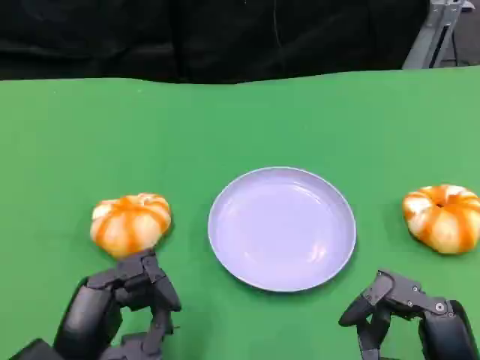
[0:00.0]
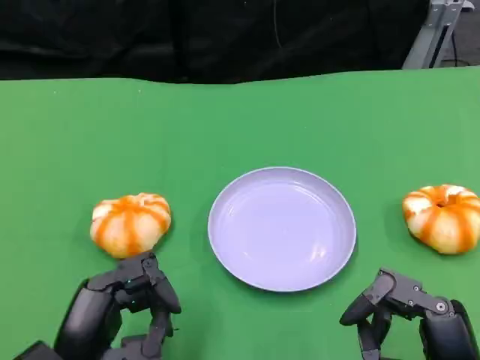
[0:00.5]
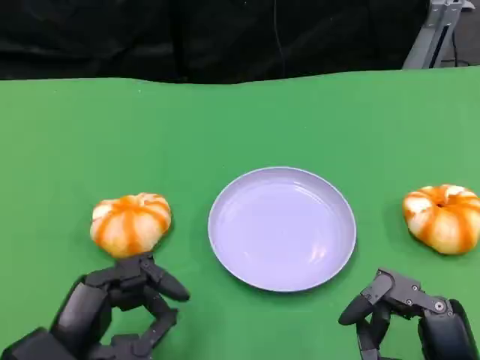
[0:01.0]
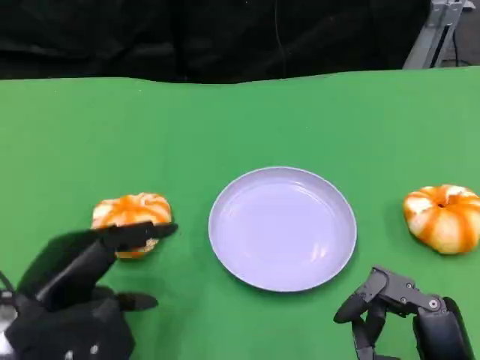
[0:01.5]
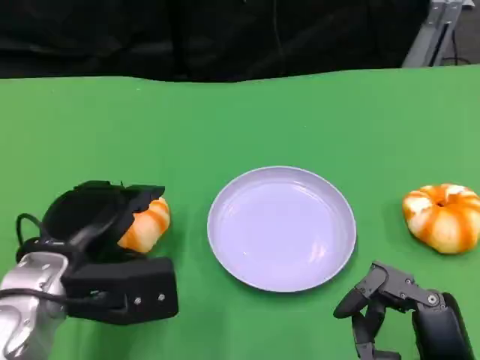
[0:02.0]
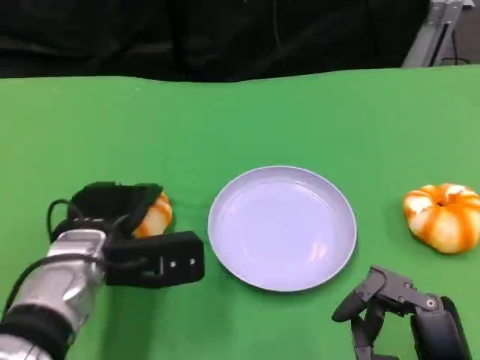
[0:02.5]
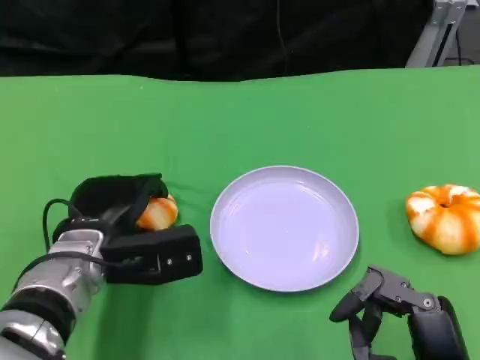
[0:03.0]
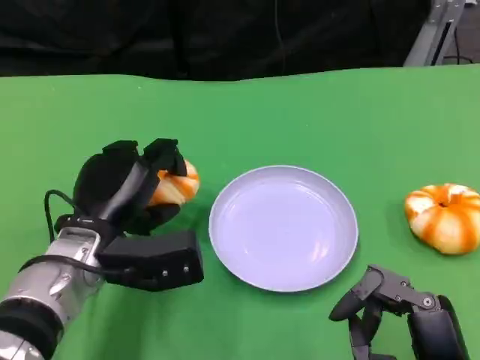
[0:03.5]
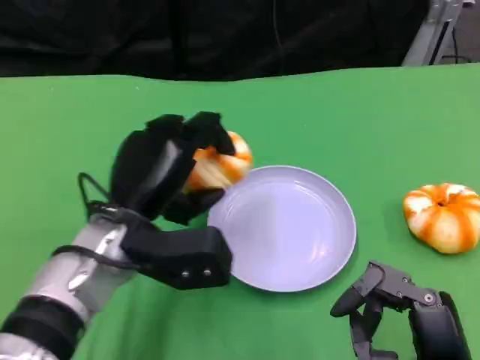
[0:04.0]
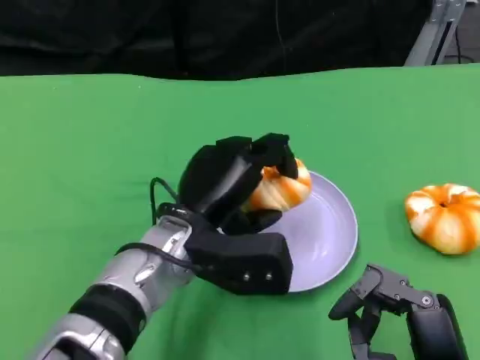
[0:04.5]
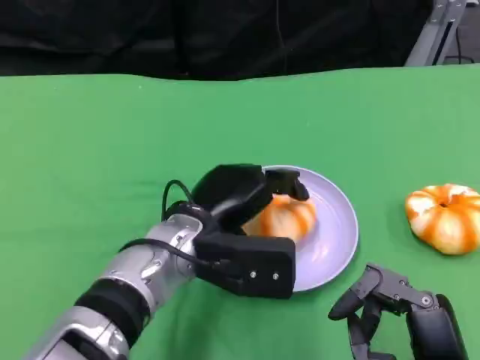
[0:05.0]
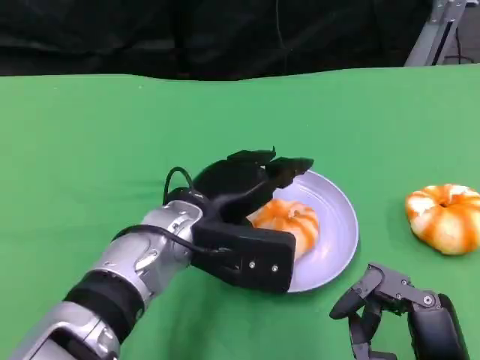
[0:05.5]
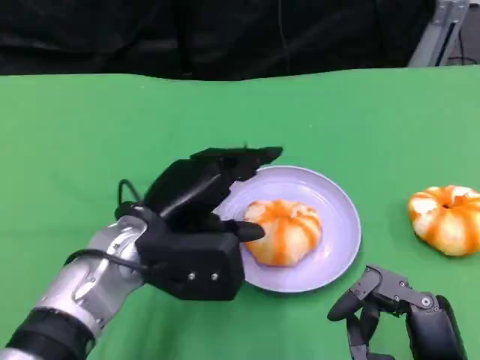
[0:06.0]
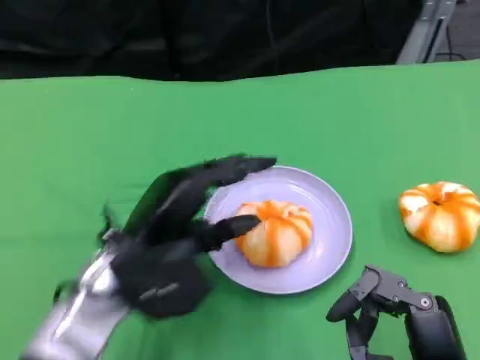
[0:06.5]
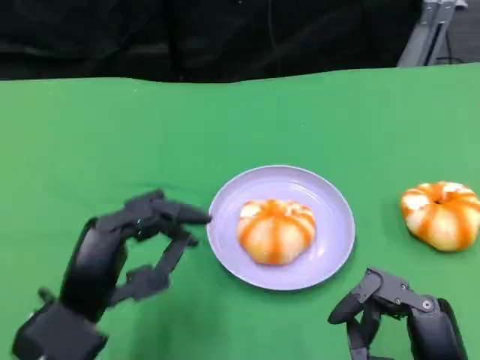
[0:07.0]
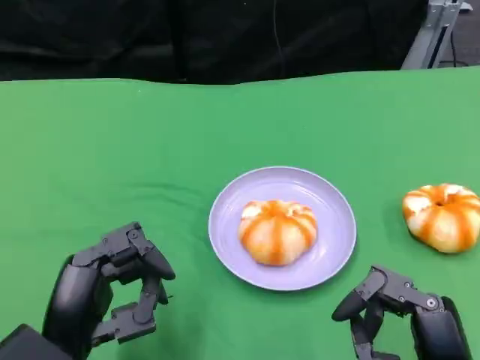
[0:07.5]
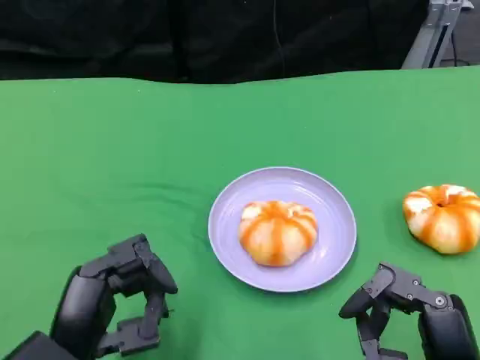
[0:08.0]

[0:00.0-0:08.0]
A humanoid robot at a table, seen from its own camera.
Task of the whole recording: Grasp the bread from the table and place it into the plate.
0:00.0 to 0:02.0: The left hand is displaced forward by about 10 cm.
0:02.0 to 0:04.0: The left hand heads to the right, covering some 5 cm.
0:06.0 to 0:08.0: The left hand goes about 15 cm backward and to the left.

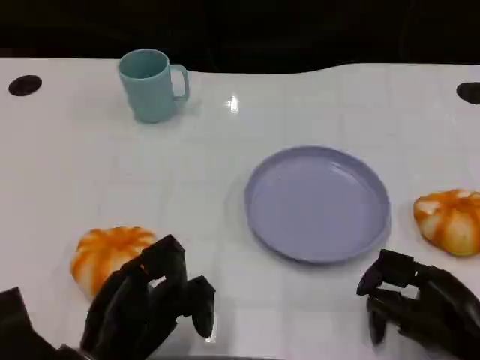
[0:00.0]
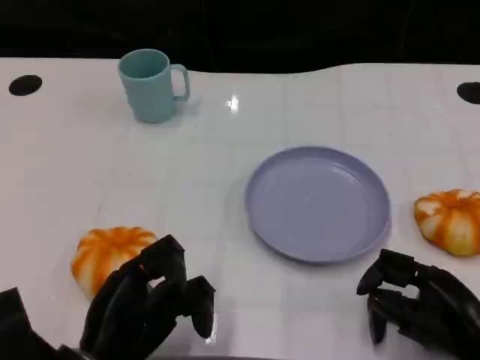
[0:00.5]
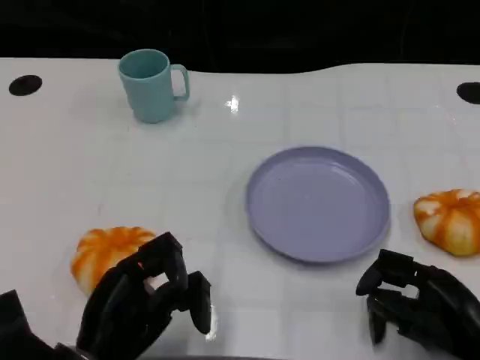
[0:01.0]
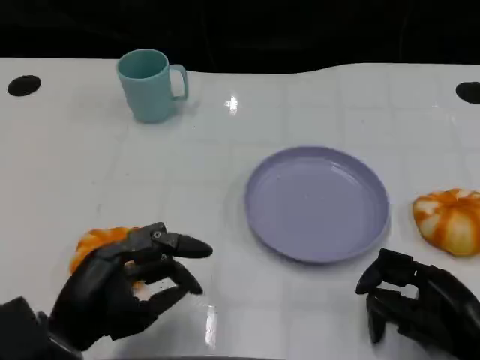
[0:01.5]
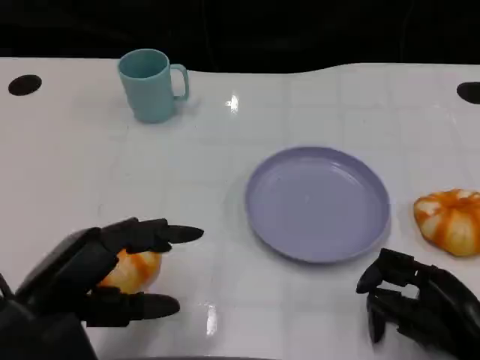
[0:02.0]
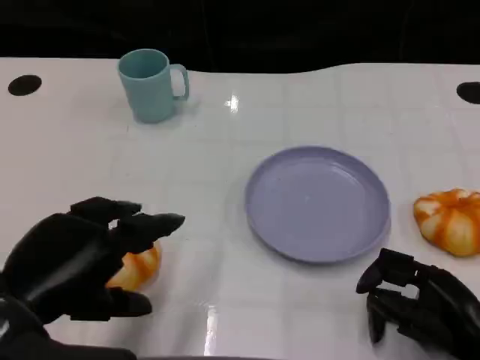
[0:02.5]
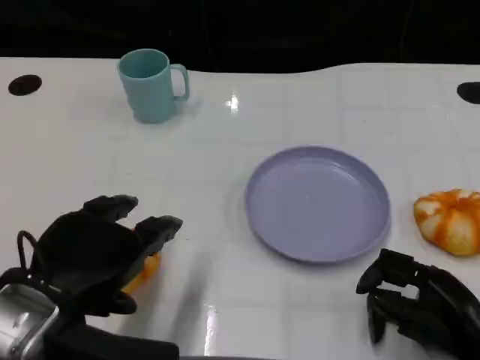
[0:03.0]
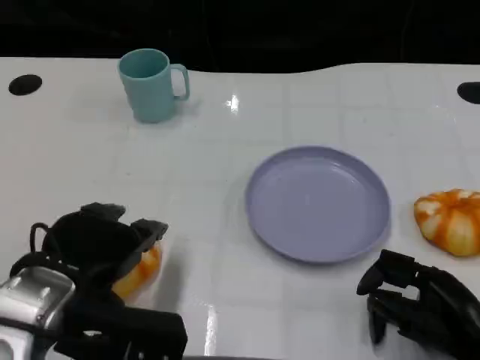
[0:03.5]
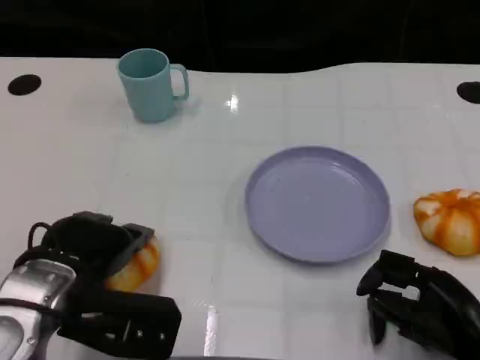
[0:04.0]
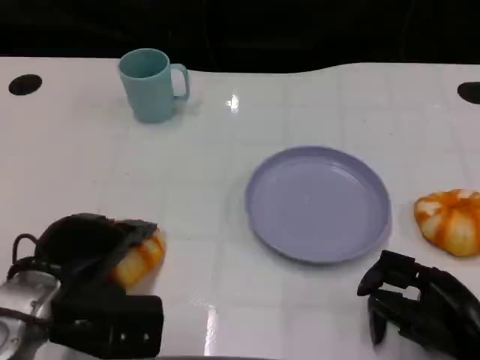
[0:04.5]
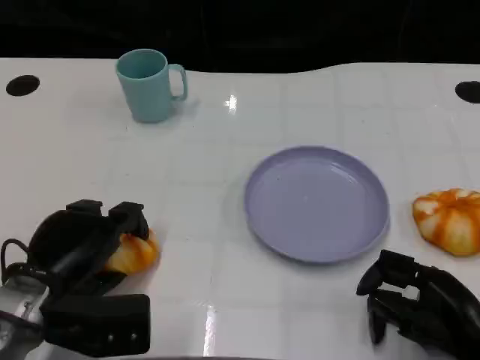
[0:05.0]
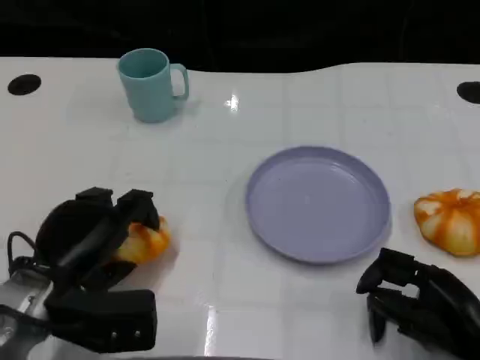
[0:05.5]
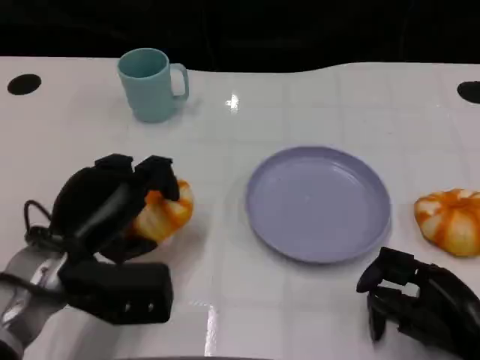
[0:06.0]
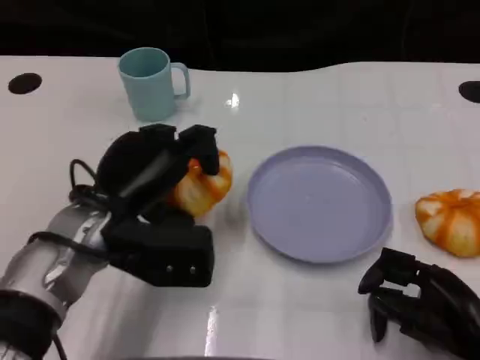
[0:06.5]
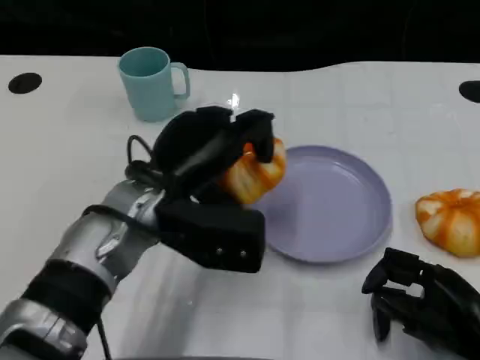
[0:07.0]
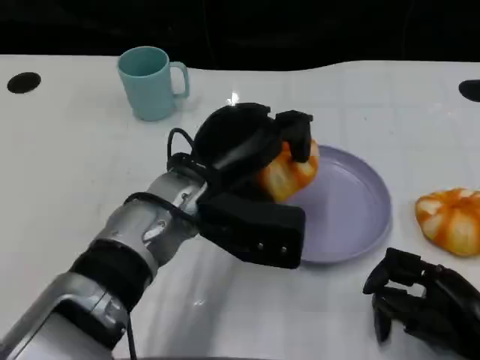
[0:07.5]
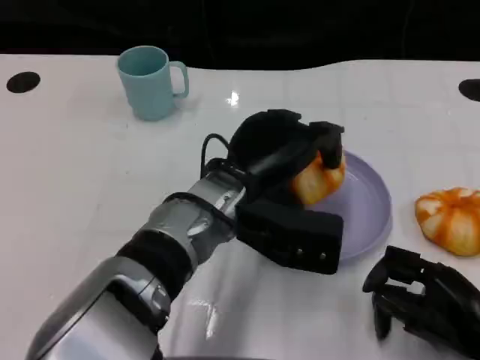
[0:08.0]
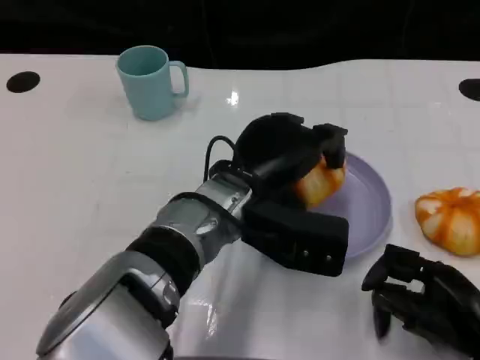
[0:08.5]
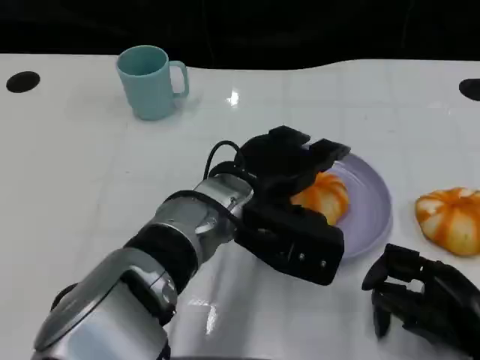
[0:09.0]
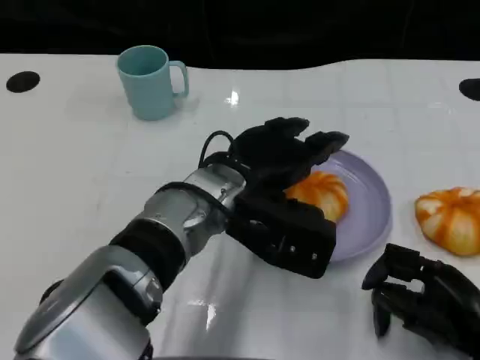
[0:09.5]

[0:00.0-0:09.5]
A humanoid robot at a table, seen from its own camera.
Task of the whole recording: Grasp the bread from the table and place it into the plate.
0:00.0 to 0:02.0: The left hand goes some 10 cm upward and to the left.
0:02.0 to 0:04.0: The left hand heads forward, covering about 5 cm.
0:05.5 to 0:07.5: The left hand goes some 15 cm to the right and upward.

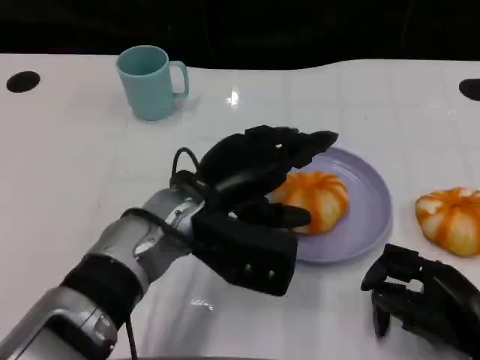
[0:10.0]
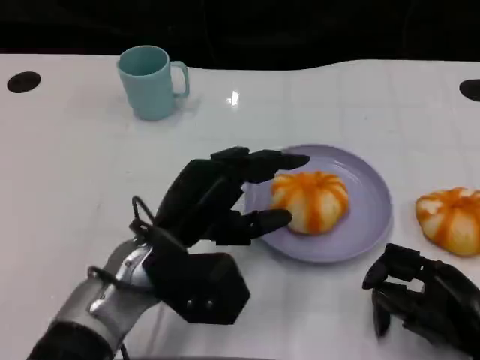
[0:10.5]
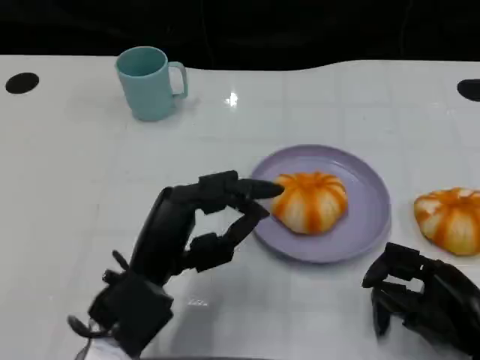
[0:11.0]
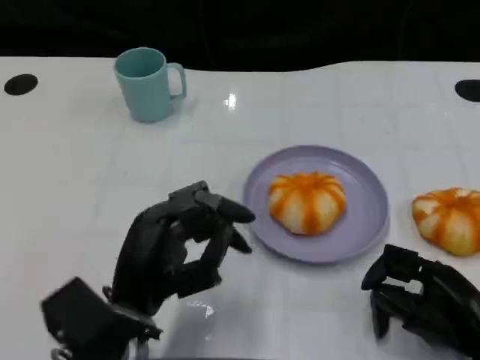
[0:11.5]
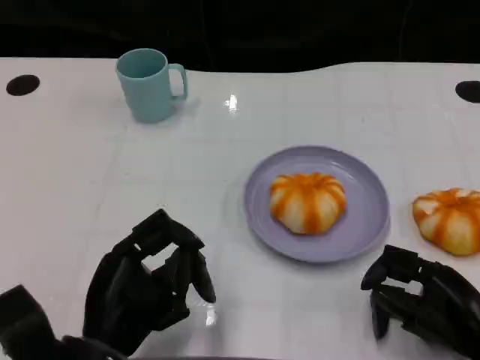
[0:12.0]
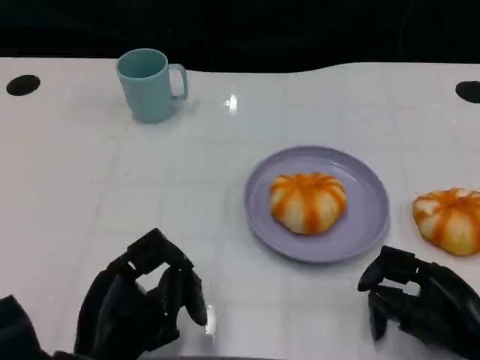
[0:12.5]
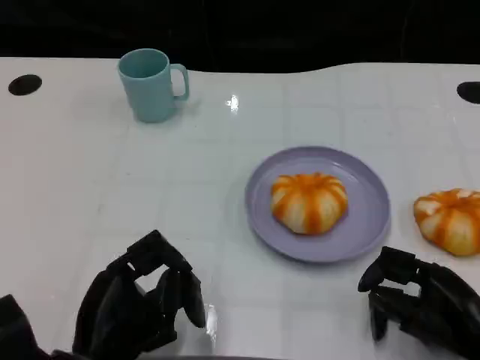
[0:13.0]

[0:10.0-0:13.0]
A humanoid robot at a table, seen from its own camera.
Task of the whole recording: Grasp the bread from the table and place it into the plate.
0:10.0 to 0:11.5: The left hand moves backward and to the left, some 10 cm.
0:11.5 to 0:13.0: The left hand shifts by roughly 5 cm.

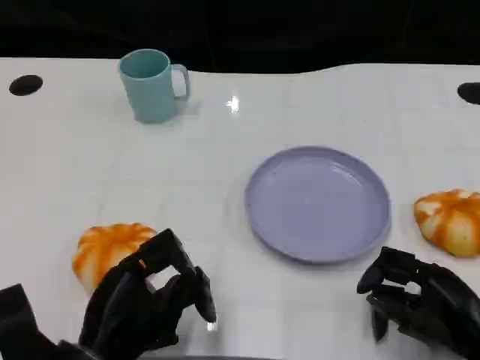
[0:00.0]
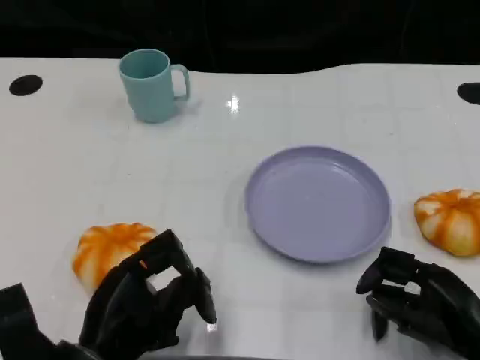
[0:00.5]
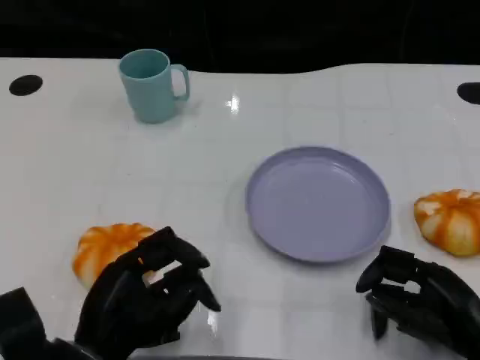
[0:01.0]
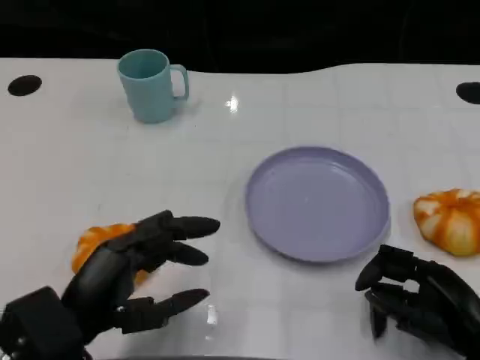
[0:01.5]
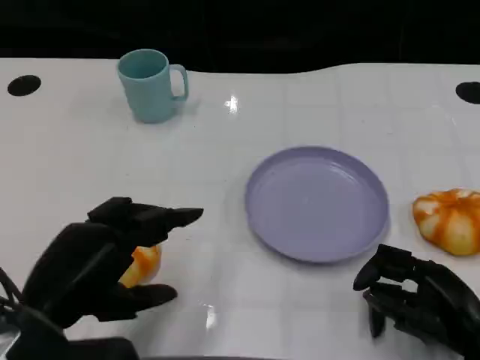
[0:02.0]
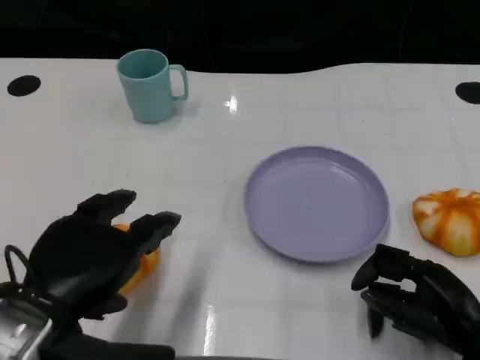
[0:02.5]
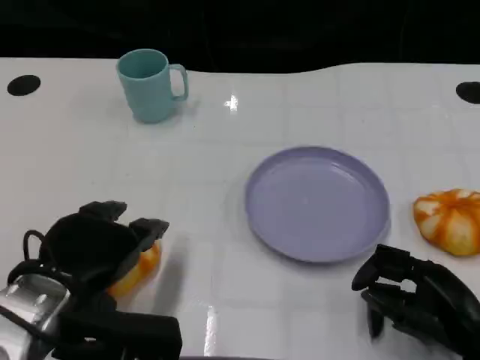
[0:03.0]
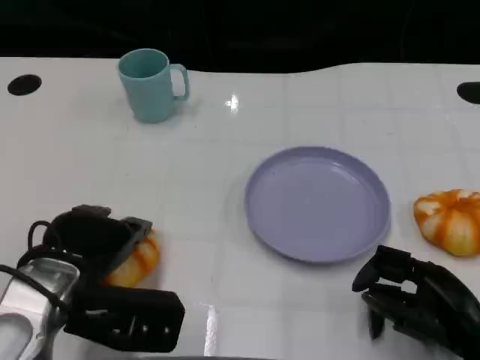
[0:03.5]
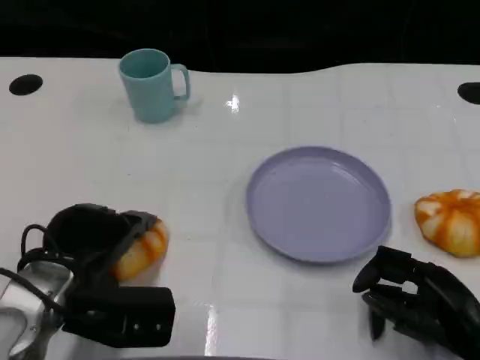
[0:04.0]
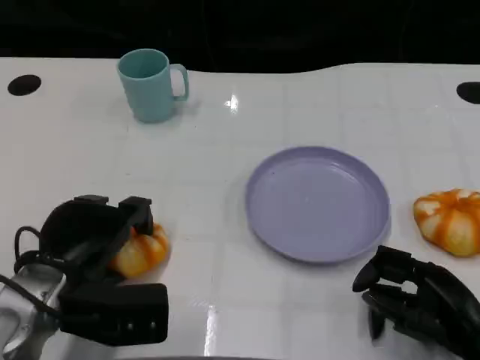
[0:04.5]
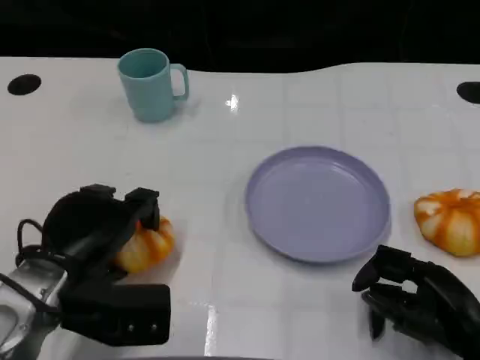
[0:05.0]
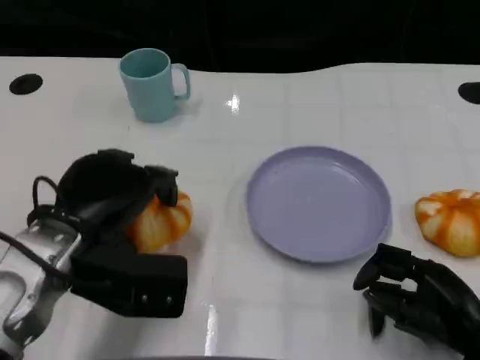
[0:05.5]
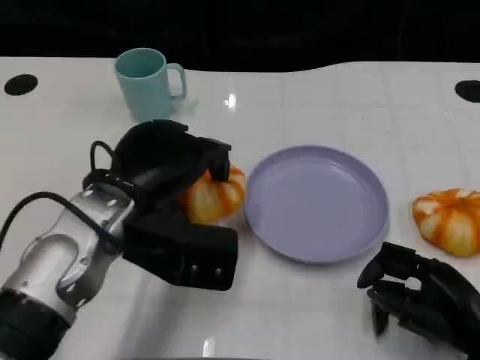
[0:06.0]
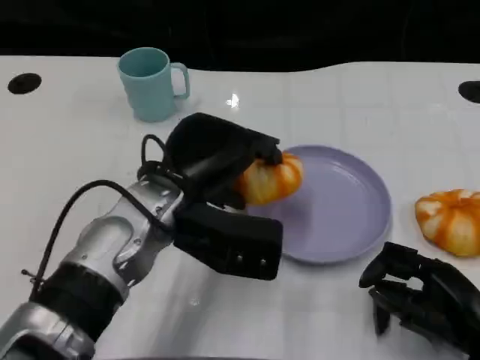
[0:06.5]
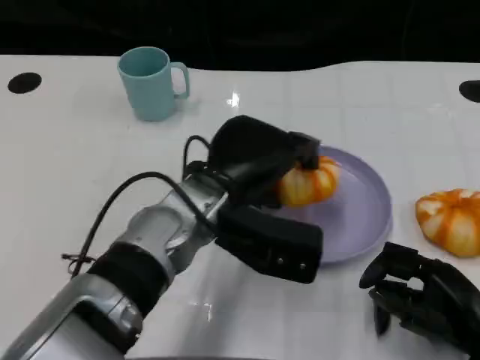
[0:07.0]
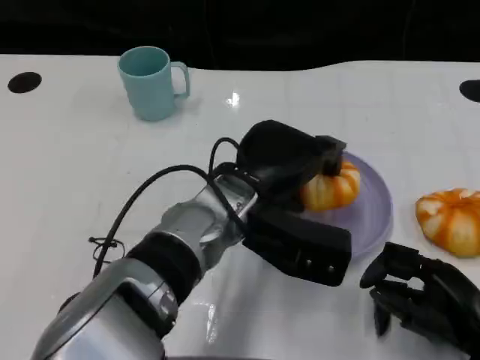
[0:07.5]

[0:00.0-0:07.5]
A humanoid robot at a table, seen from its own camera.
Task of the whole recording: Grasp the bread from the table and place it into the plate.
0:00.0 to 0:02.0: The left hand goes about 10 cm upward.
0:02.0 to 0:04.0: The left hand heads forward and downward, covering roughly 10 cm.
0:04.0 to 0:05.5: The left hand travels upward by roughly 5 cm.
0:05.5 to 0:07.5: The left hand moves to the right, roughly 15 cm.
